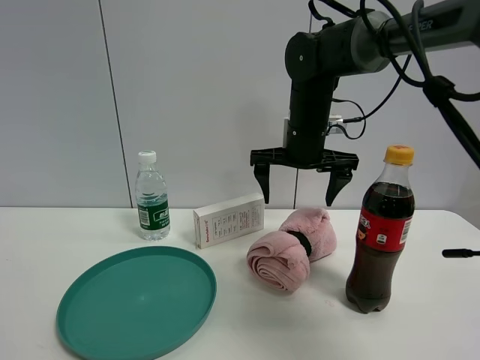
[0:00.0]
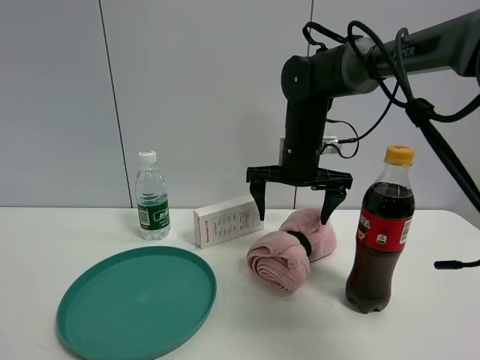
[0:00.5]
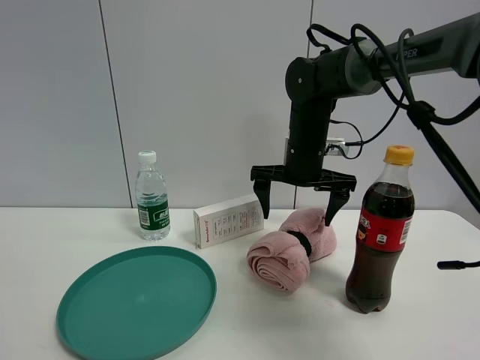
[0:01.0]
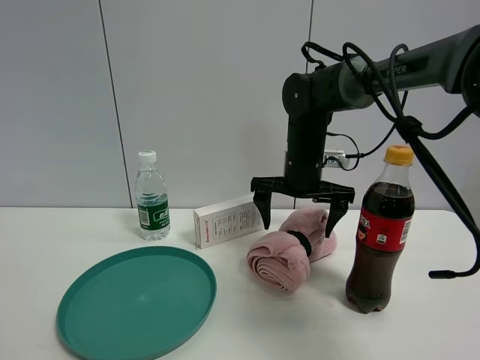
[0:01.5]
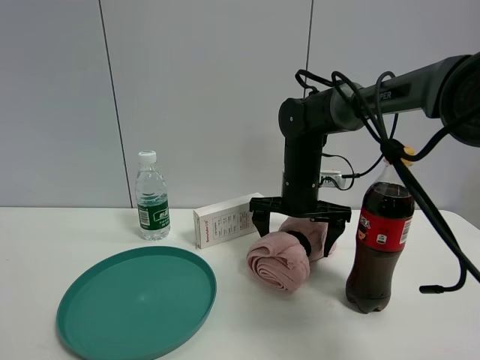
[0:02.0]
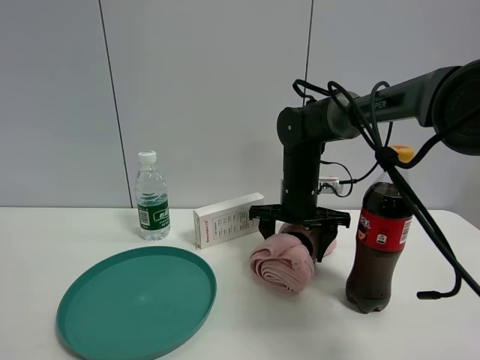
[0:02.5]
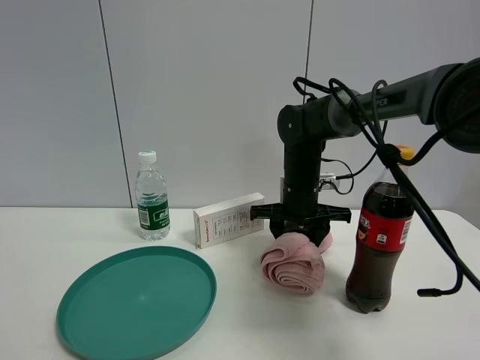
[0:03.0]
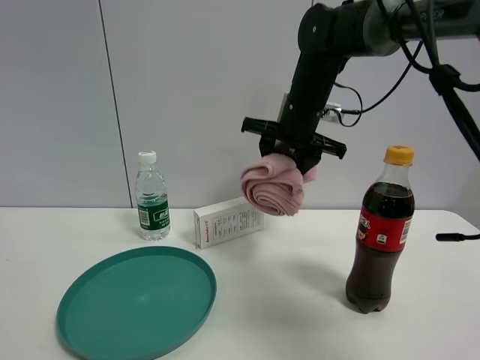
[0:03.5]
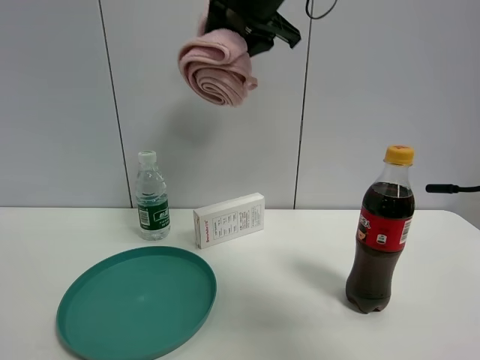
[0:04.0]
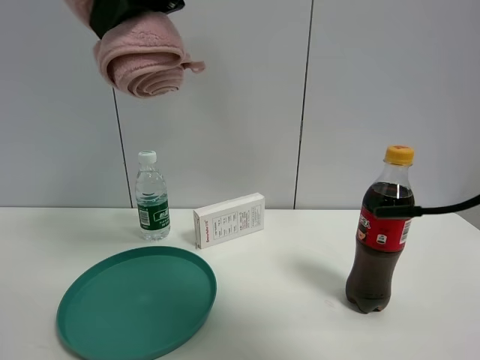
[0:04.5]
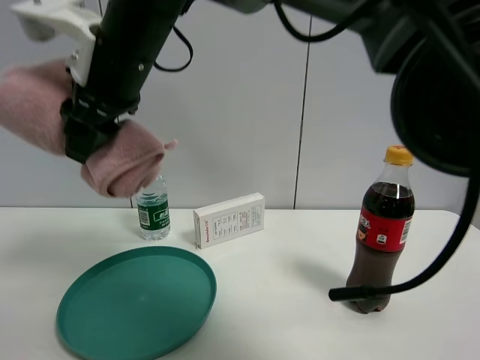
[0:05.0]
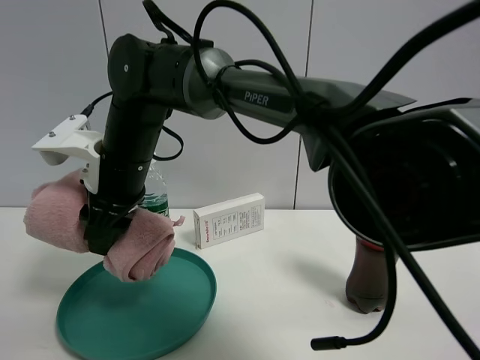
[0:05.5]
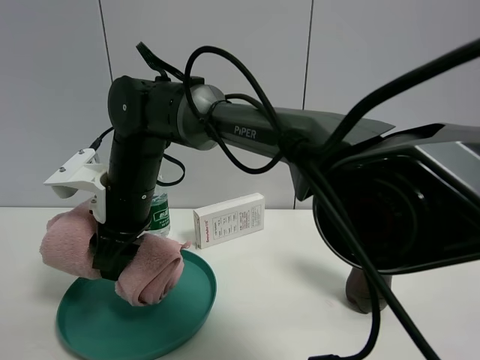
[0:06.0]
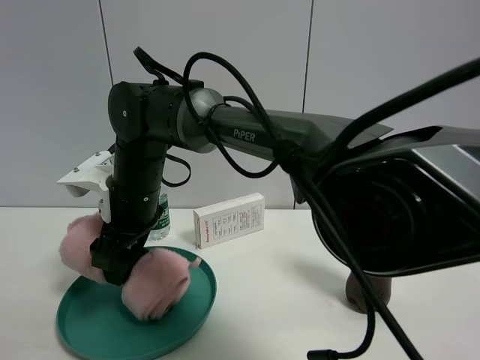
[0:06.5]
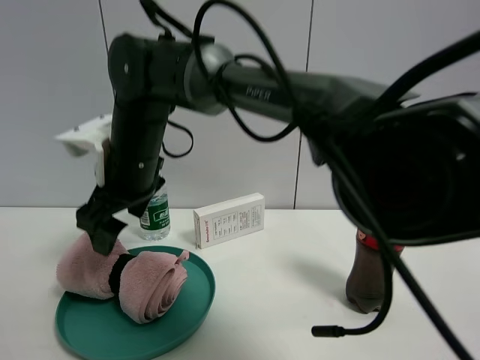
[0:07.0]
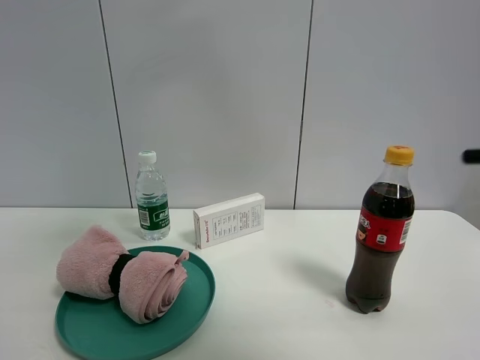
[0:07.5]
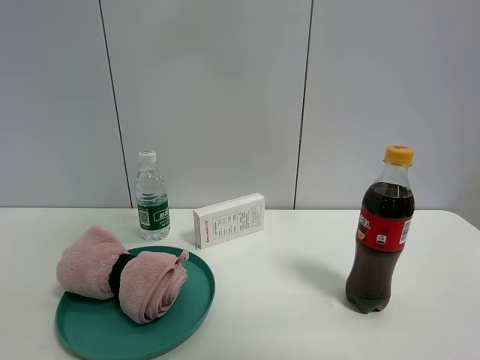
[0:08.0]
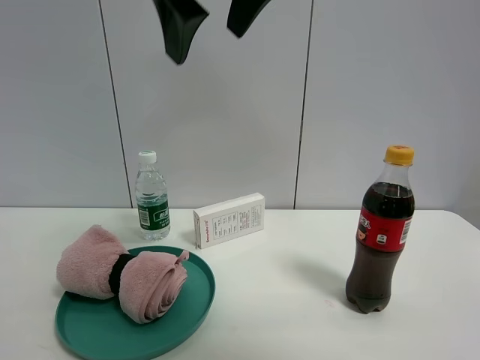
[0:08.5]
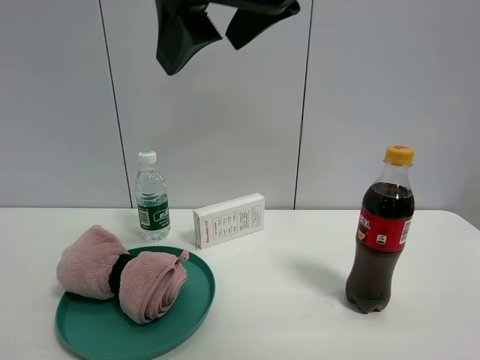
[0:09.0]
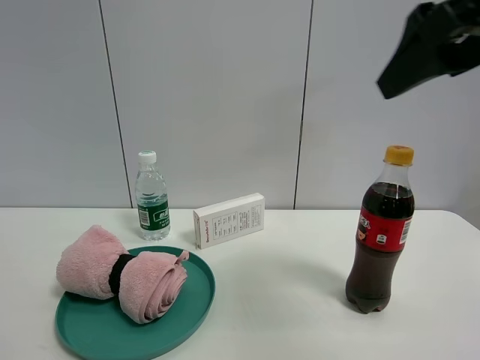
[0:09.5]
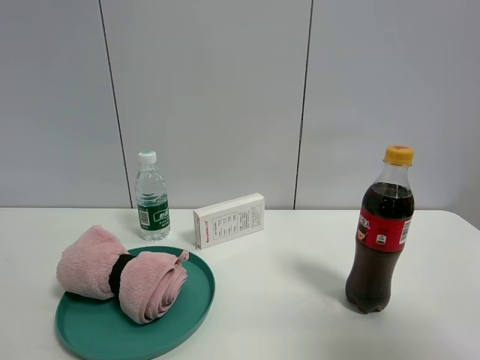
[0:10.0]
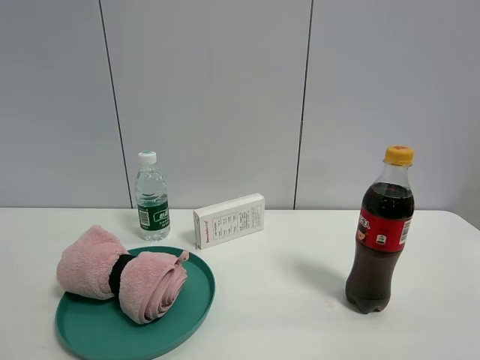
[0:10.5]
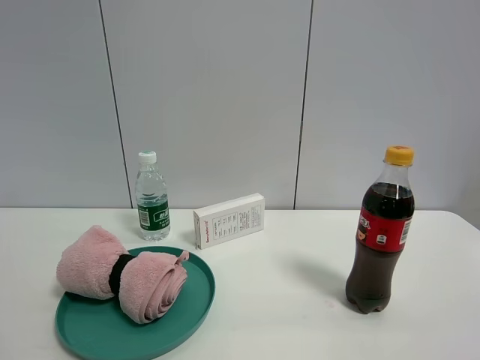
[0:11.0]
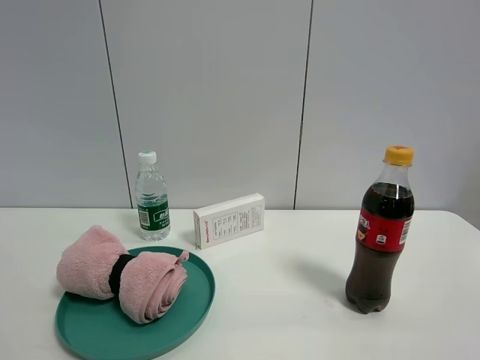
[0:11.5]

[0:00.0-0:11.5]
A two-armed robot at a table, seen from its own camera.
Task of the whole recording: the gripper move the object.
Step, 0:00.0 to 0:02.5: Grasp the pink towel with the right gripper.
Step, 0:03.0 to 0:06.5: Place the pink towel into the green plate with the right gripper.
0:00.0 to 0:02.0: The right gripper heads downward, covering roughly 10 cm.
0:02.0 to 0:04.0: The right gripper shifts about 30 cm upward, and closes.
0:04.0 to 0:06.0: The right gripper goes approximately 30 cm downward and to the left.
0:06.0 to 0:07.5: The right gripper is displaced upward by roughly 35 cm, and opens up.
0:07.5 to 0:09.5: The right gripper goes left and right, approximately 25 cm each way, reversing 2 times.
0:09.5 to 0:11.5: The right gripper moves backward and downward, approximately 25 cm.

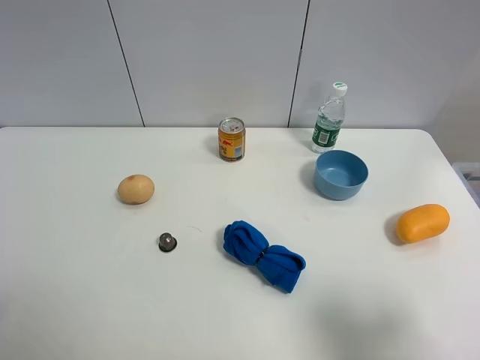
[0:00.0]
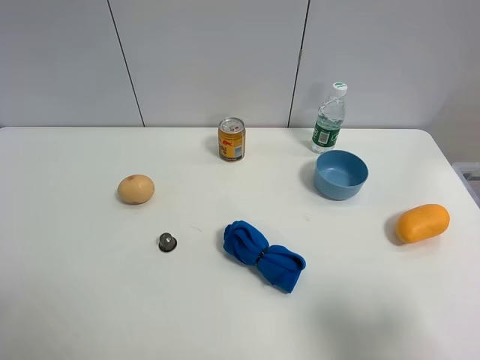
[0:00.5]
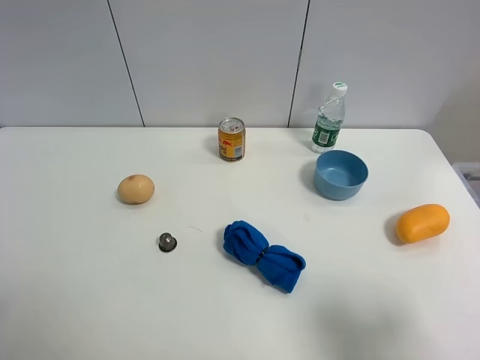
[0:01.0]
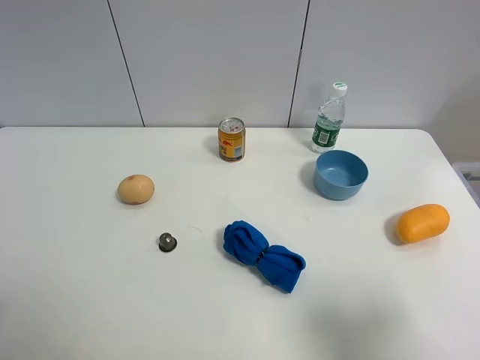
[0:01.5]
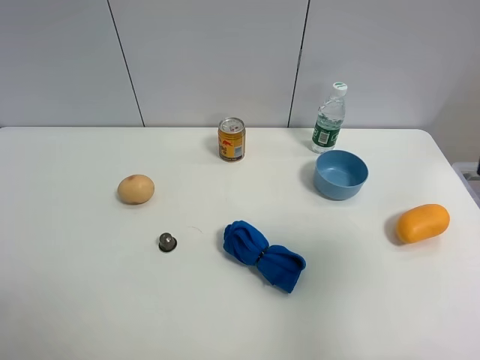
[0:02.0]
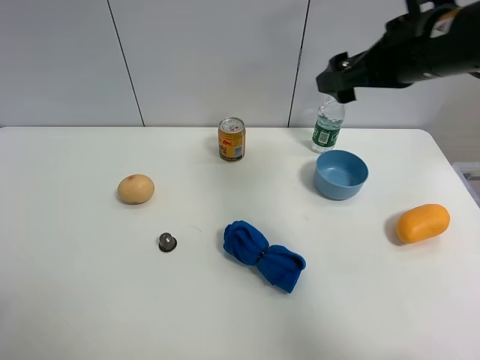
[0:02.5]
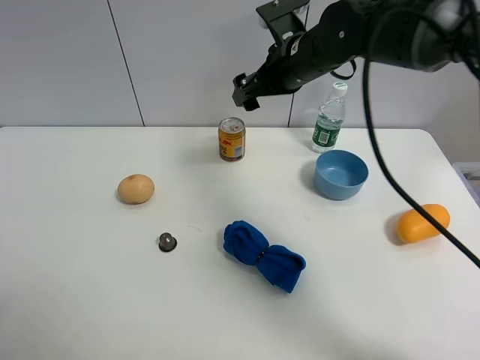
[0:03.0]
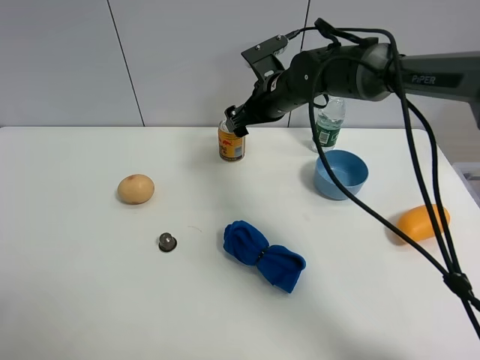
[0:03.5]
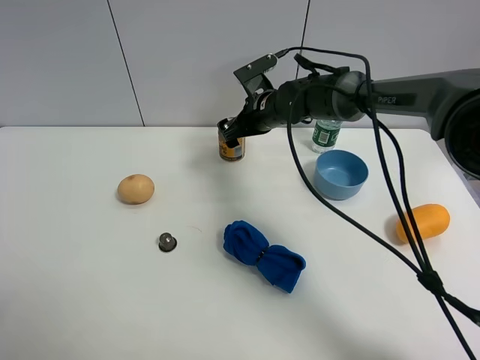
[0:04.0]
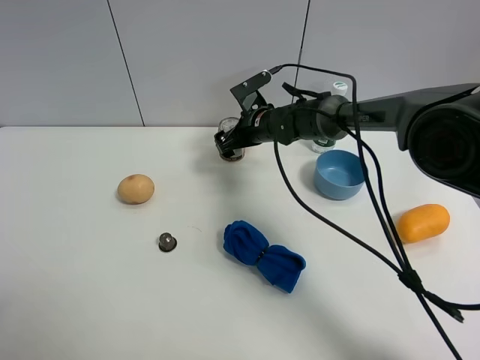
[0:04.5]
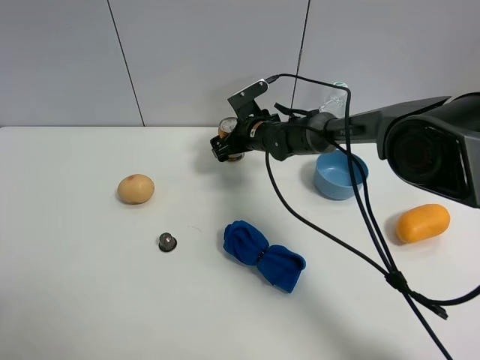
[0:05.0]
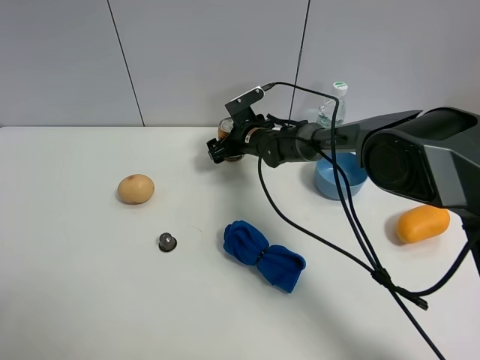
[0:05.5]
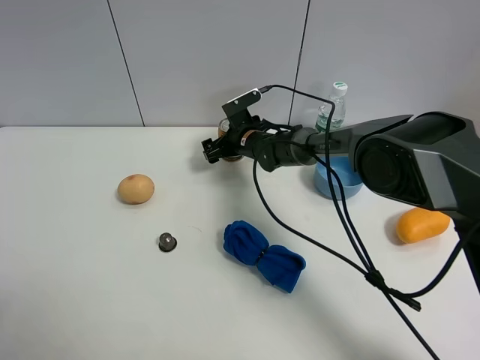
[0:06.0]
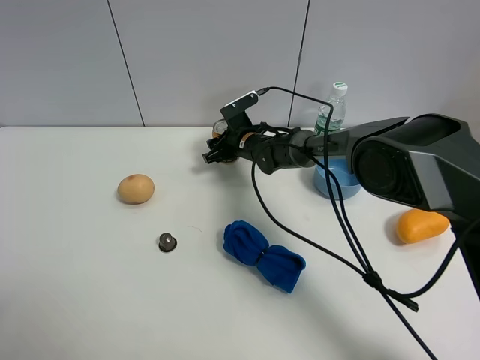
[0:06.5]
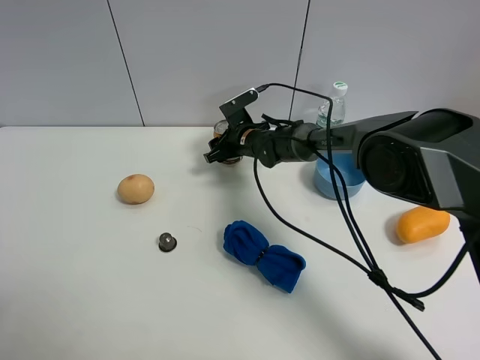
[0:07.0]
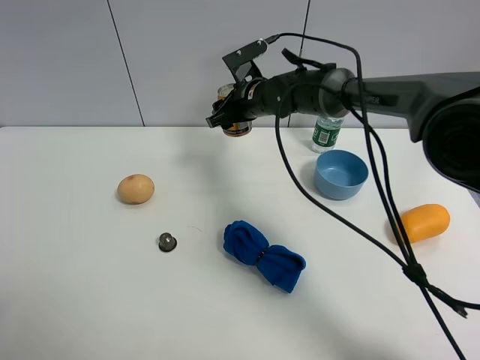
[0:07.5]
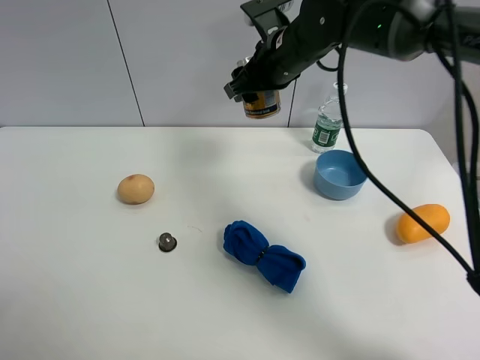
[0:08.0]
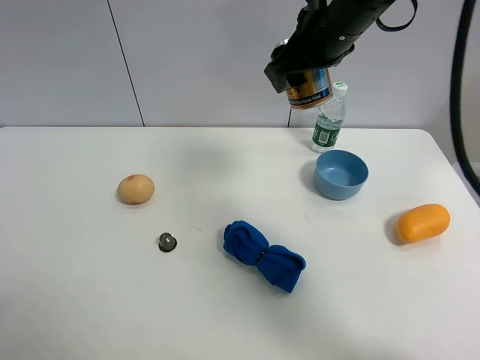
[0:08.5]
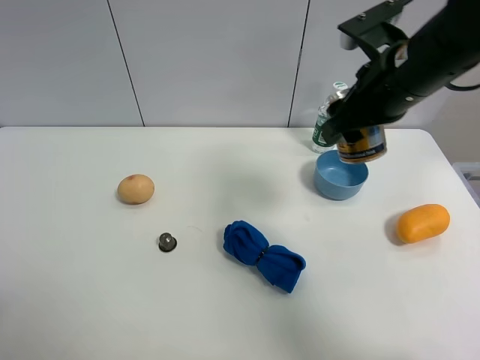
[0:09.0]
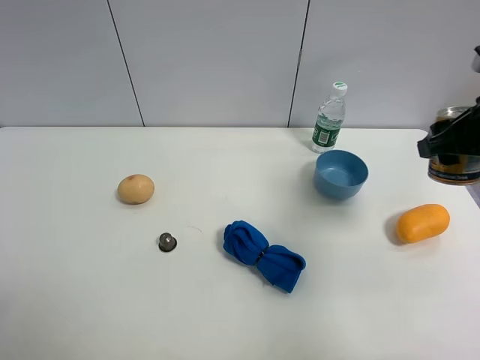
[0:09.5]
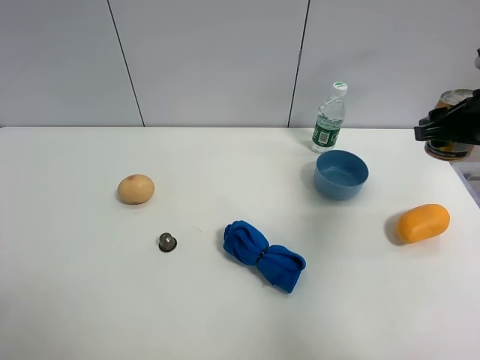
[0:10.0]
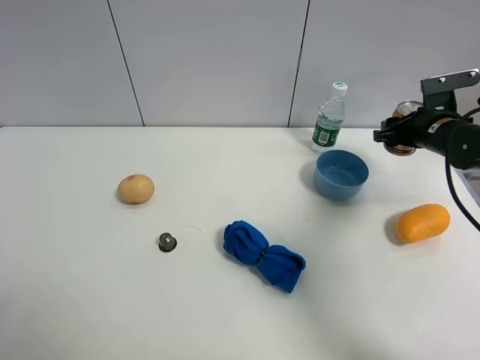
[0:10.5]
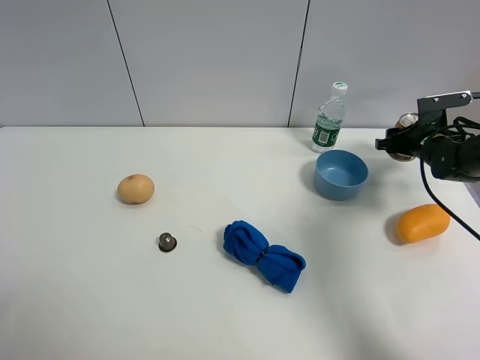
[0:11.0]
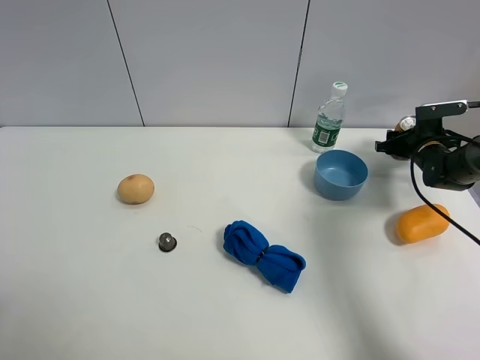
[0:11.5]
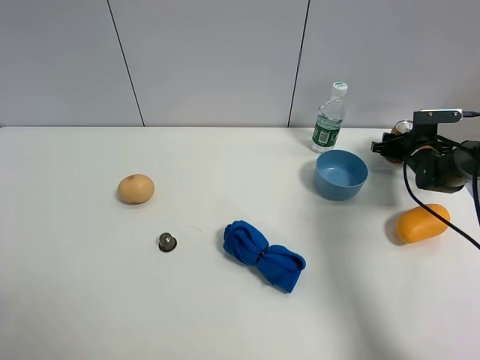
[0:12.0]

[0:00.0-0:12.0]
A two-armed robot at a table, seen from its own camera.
Task of the whole recording: the gripper move the object.
Step, 0:00.0 to 0:06.0: Grasp the red bull with the right gripper.
0:00.0 to 0:02.0: The right gripper goes approximately 10 cm forward and upward.
0:02.0 to 0:04.0: The right gripper goes roughly 40 cm forward, to the left and downward.
0:04.0 to 0:06.0: The right gripper is displaced downward by approximately 10 cm.
0:06.0 to 0:08.0: The right gripper moves upward, approximately 20 cm, and closes its fingers.
0:08.0 to 0:10.0: The right gripper heads to the right and backward, covering roughly 25 cm.
0:10.0 to 0:12.0: The right gripper goes approximately 25 cm downward and forward.

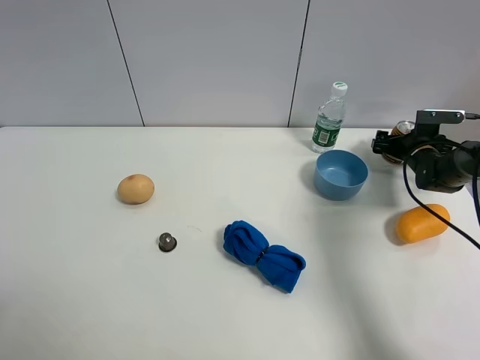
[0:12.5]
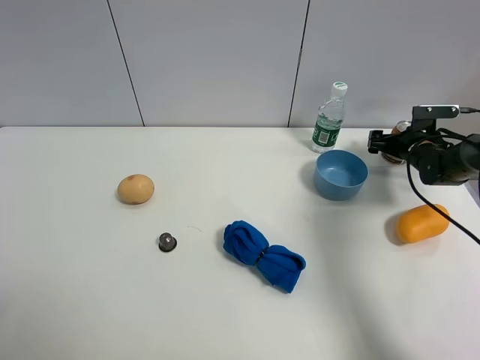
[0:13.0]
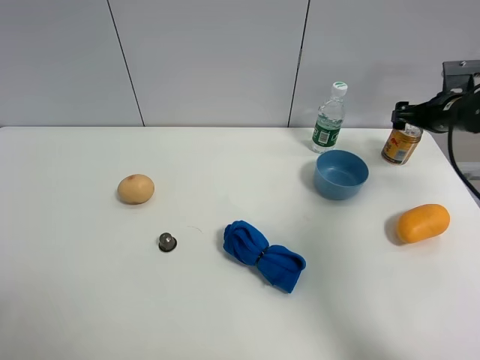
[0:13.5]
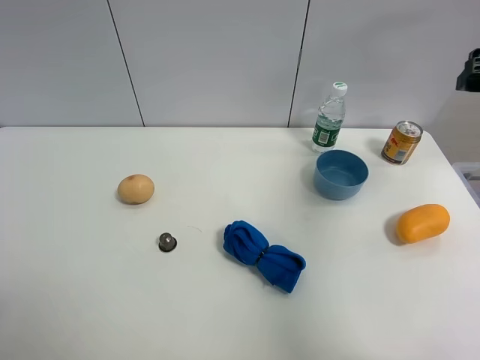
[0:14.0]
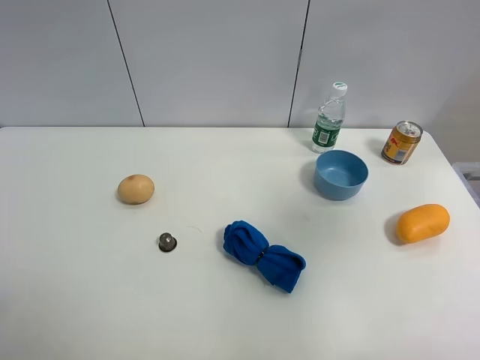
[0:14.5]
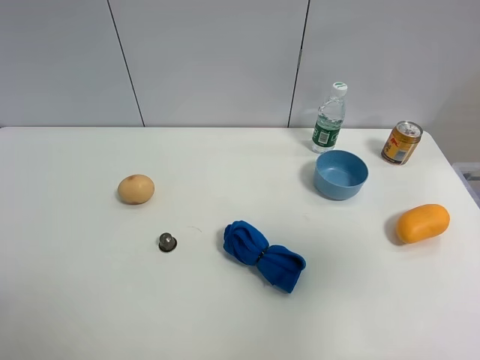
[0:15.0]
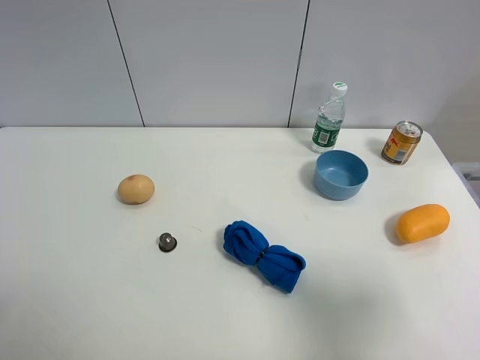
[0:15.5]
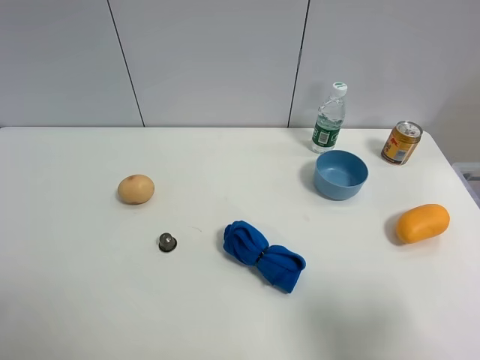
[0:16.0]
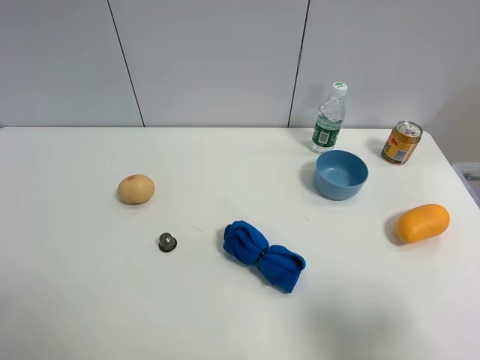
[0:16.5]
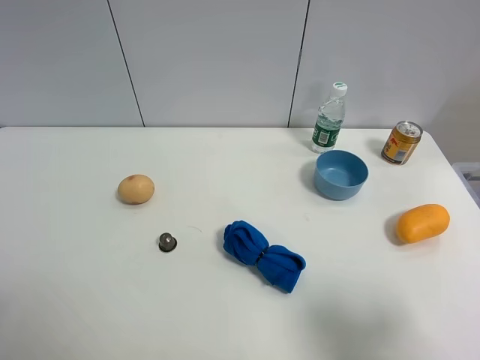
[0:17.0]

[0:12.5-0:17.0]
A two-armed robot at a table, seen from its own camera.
Task of the whole recording: the gripper move the object.
0:12.5 to 0:14.5: The right gripper travels upward and backward by about 50 cm.
0:14.5 to 0:17.0: The right gripper is displaced downward and backward by roughly 20 cm.
